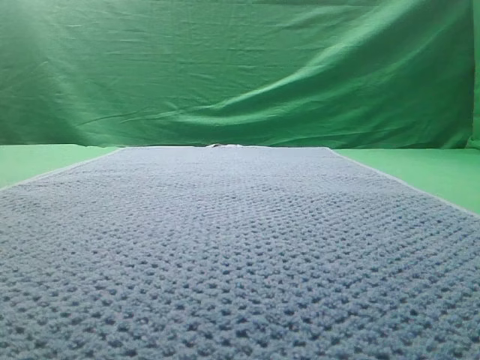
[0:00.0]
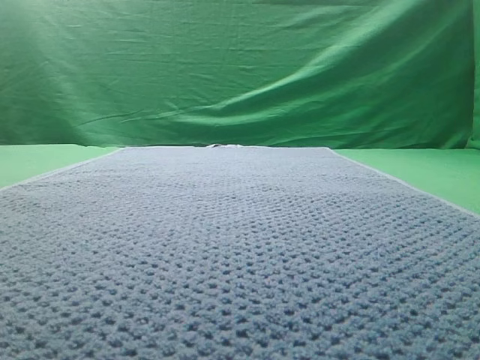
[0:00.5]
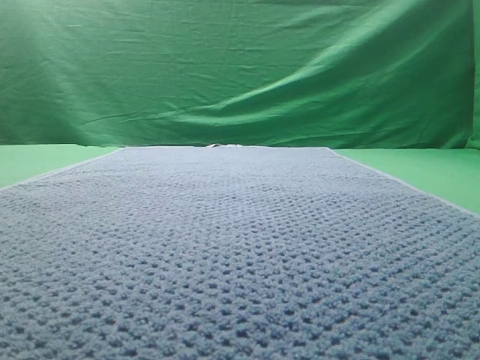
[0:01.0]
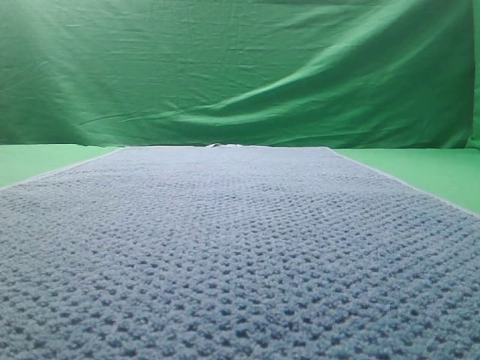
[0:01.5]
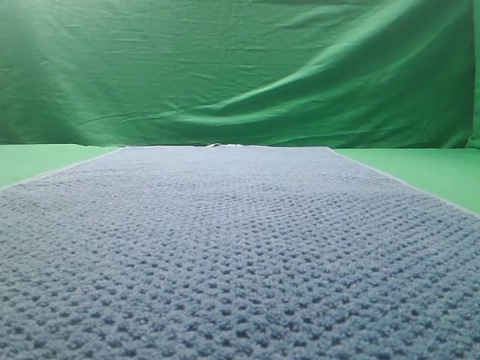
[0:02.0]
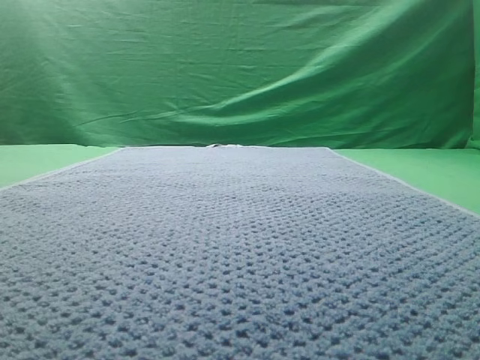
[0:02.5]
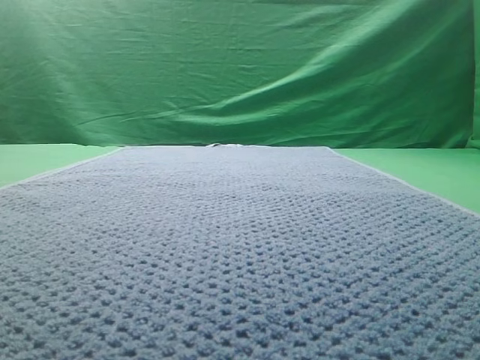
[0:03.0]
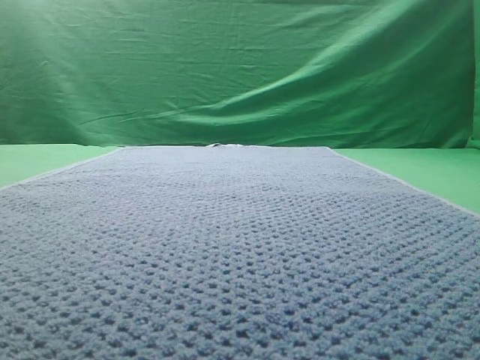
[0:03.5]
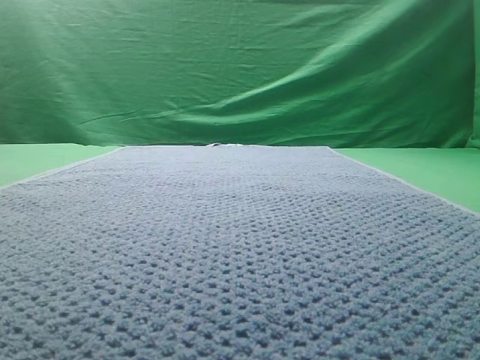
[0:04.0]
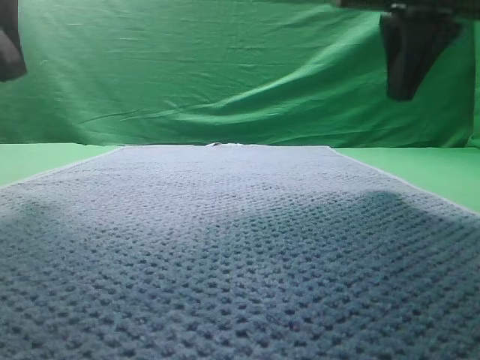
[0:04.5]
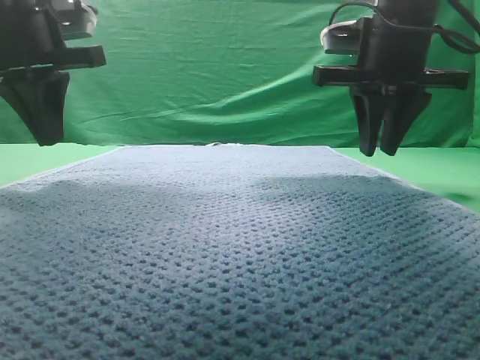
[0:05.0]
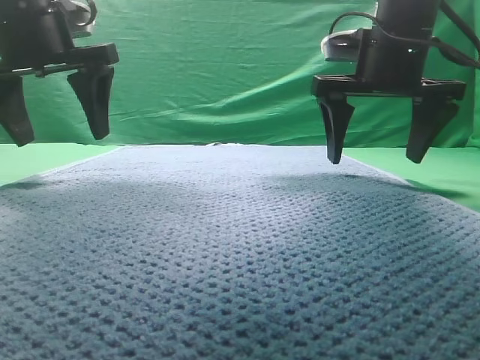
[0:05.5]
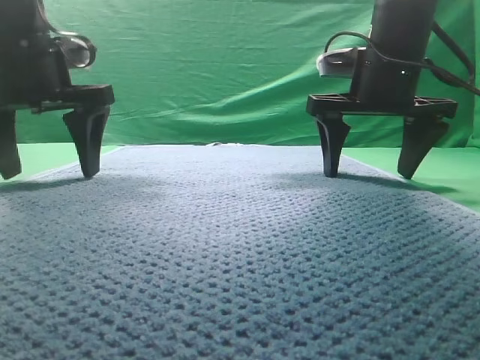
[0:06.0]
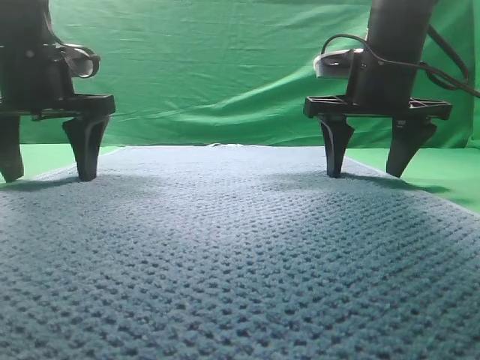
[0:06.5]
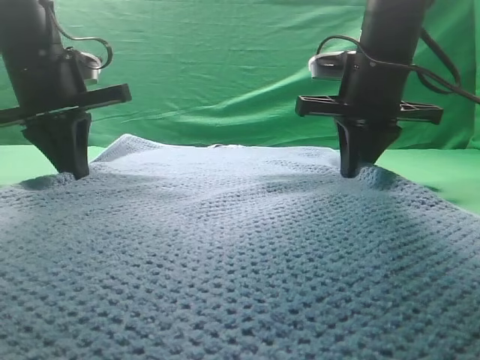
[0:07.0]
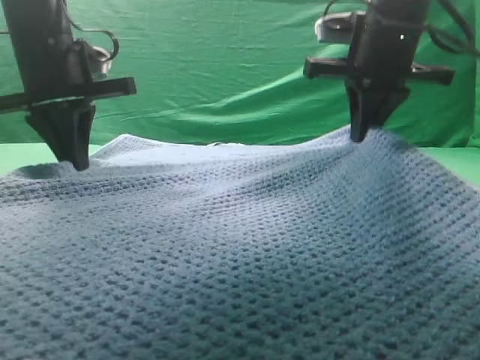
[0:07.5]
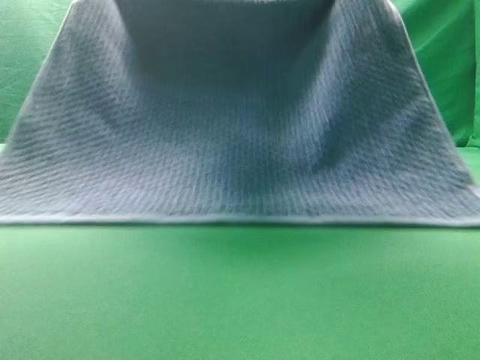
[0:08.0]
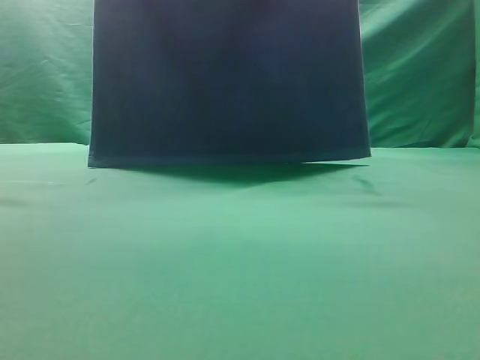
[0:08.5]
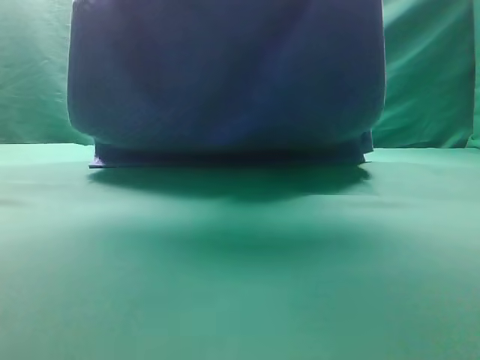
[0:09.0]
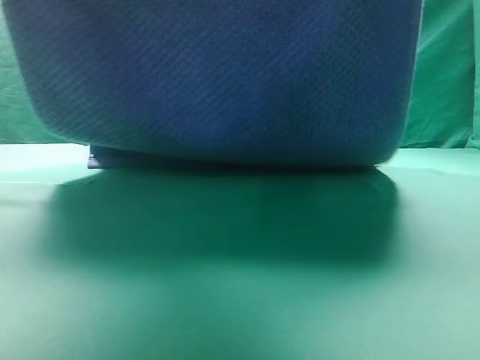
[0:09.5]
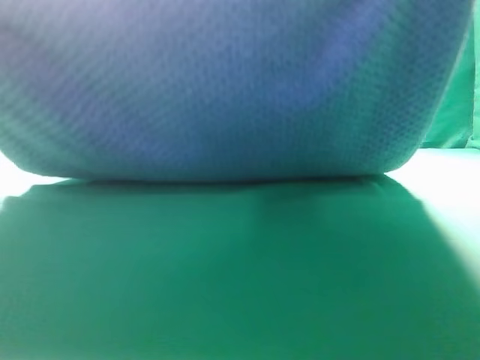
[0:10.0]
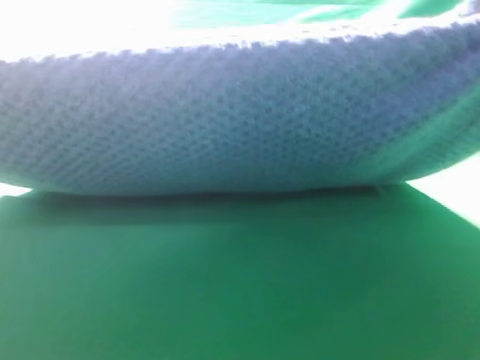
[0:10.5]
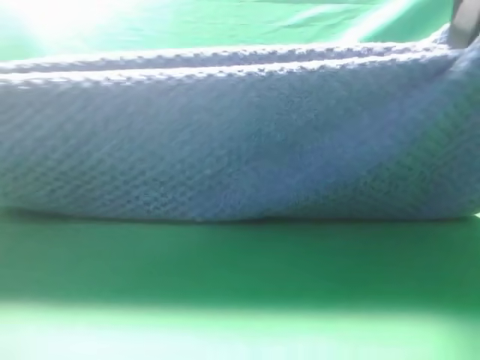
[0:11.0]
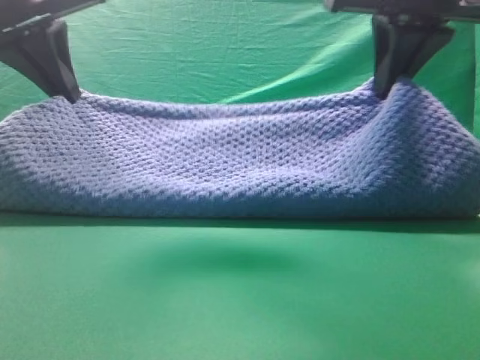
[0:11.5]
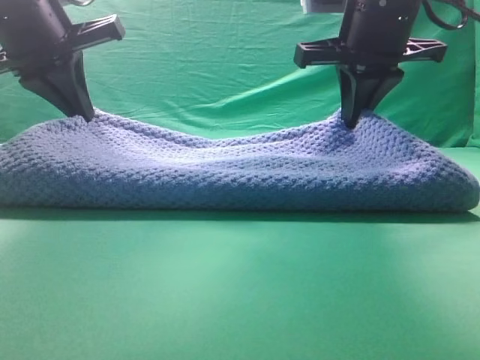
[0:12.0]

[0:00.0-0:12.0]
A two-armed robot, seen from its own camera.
Task of the whole recording: fold the towel on the table twice.
Step, 0:00.0 to 0:08.0: pick up the towel with two arm.
